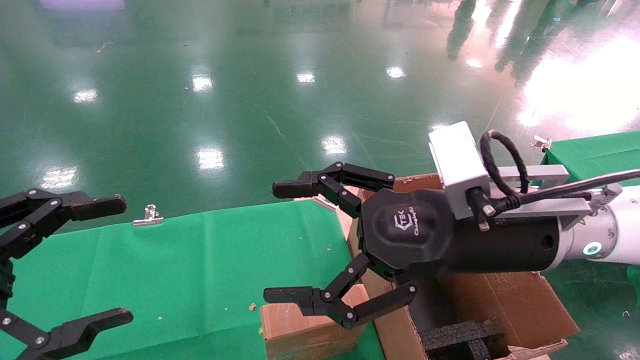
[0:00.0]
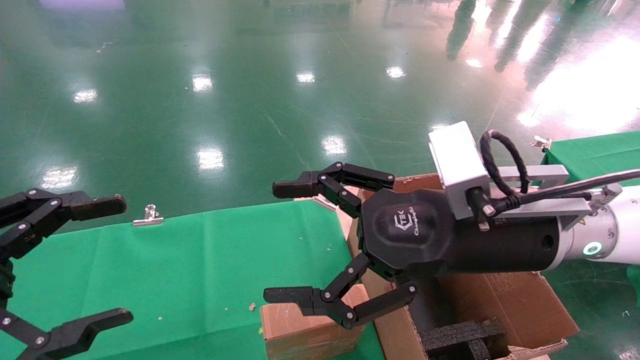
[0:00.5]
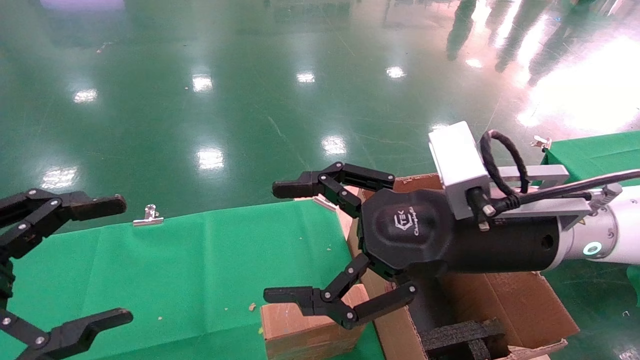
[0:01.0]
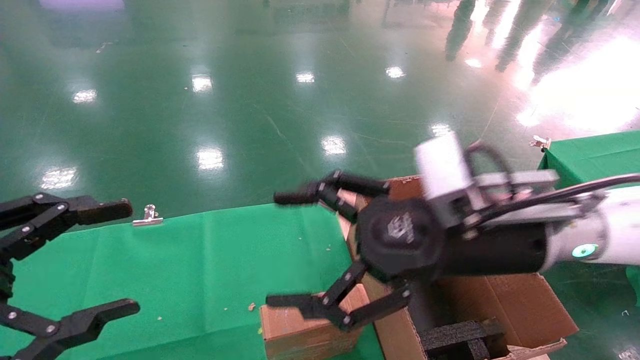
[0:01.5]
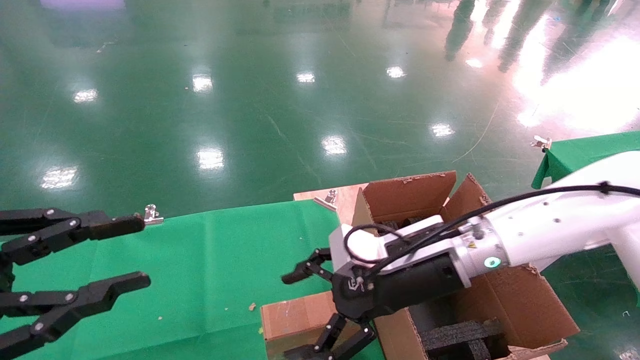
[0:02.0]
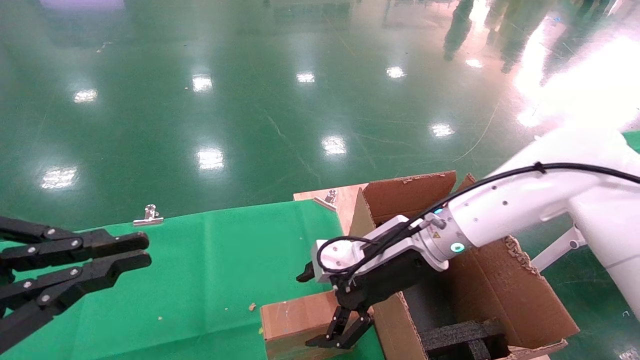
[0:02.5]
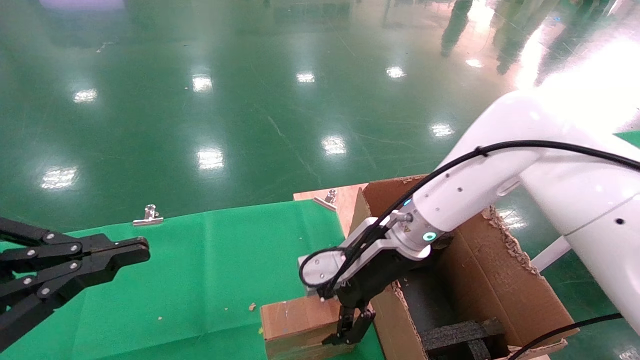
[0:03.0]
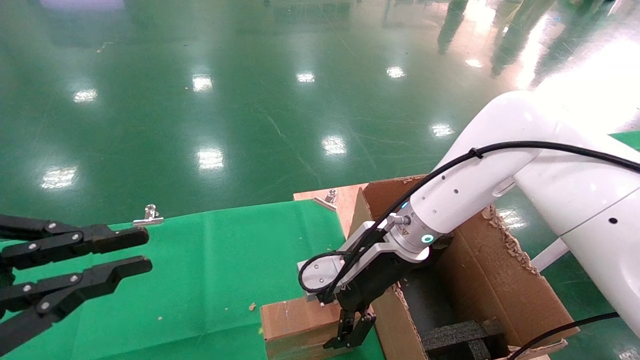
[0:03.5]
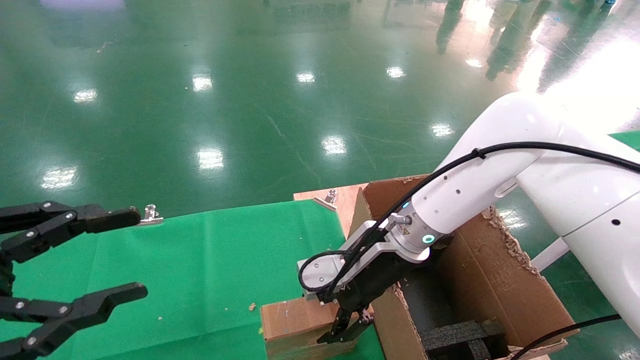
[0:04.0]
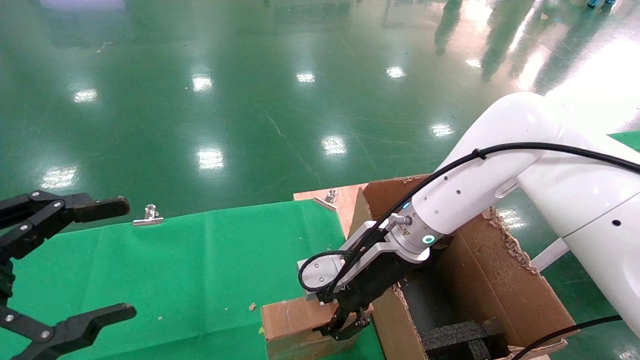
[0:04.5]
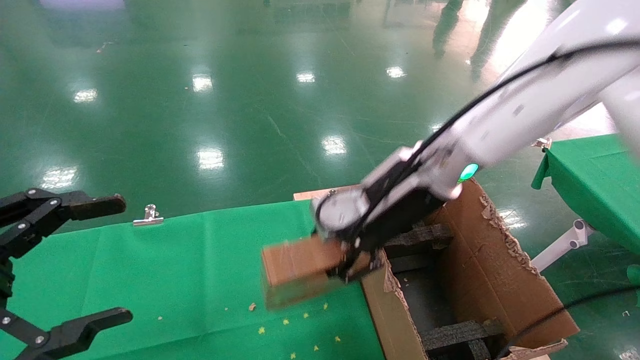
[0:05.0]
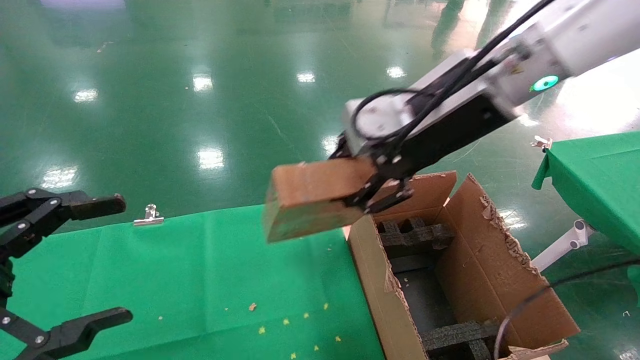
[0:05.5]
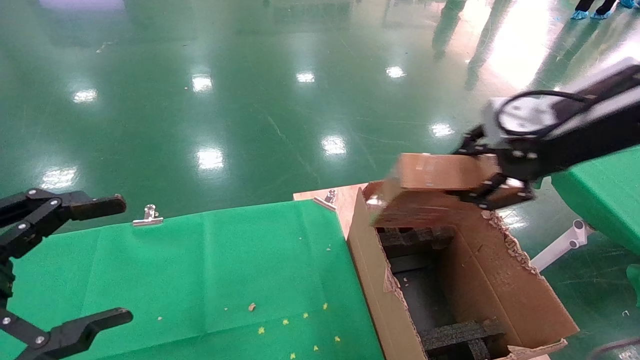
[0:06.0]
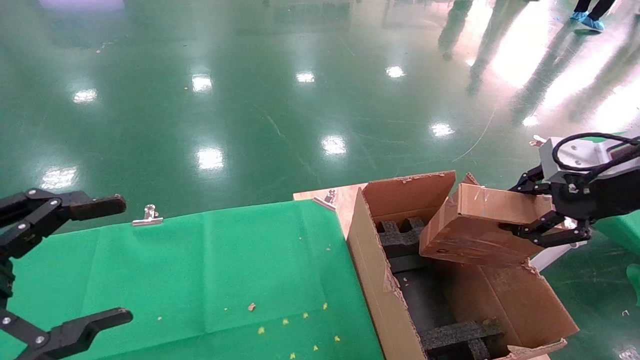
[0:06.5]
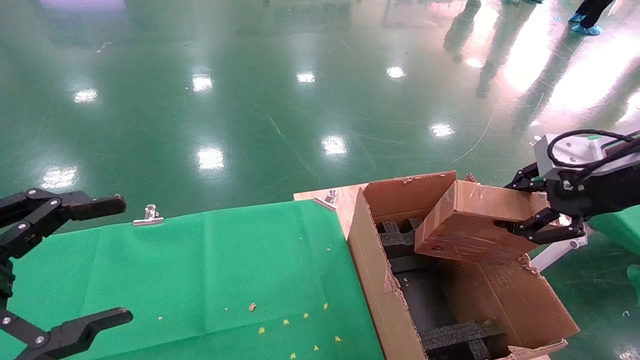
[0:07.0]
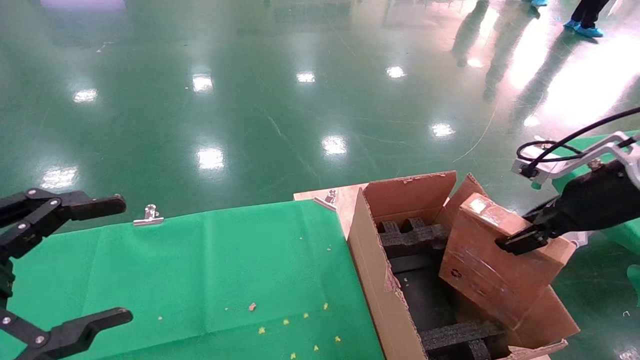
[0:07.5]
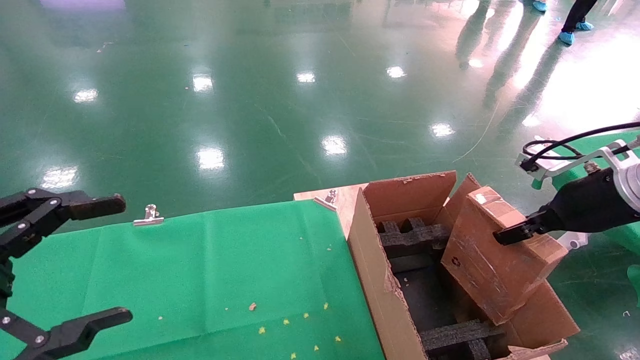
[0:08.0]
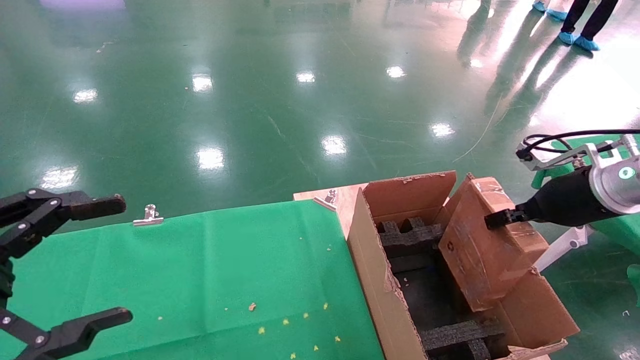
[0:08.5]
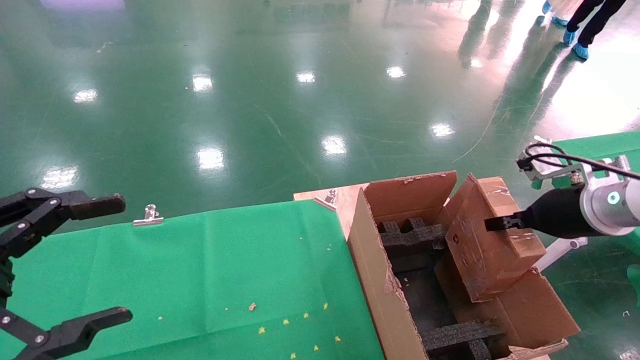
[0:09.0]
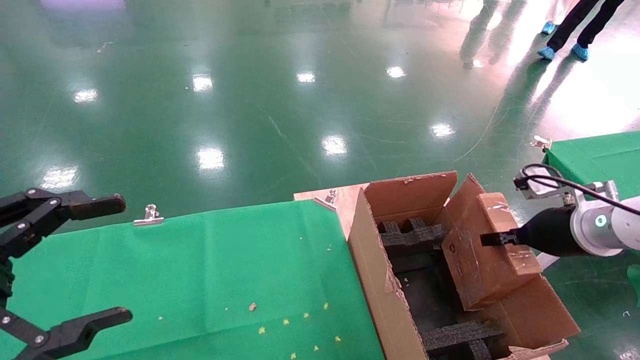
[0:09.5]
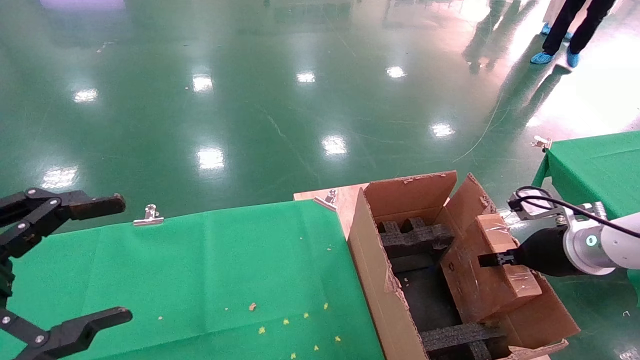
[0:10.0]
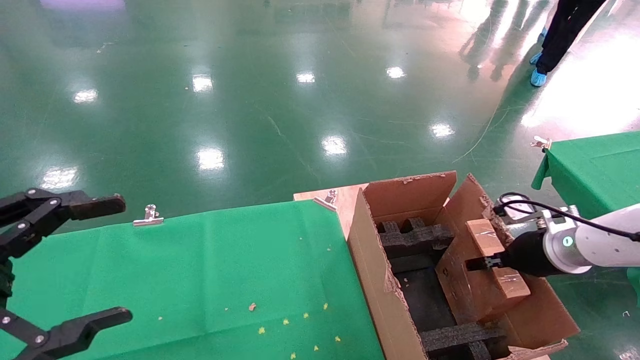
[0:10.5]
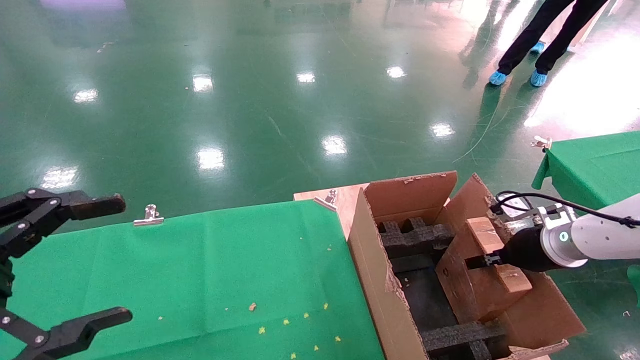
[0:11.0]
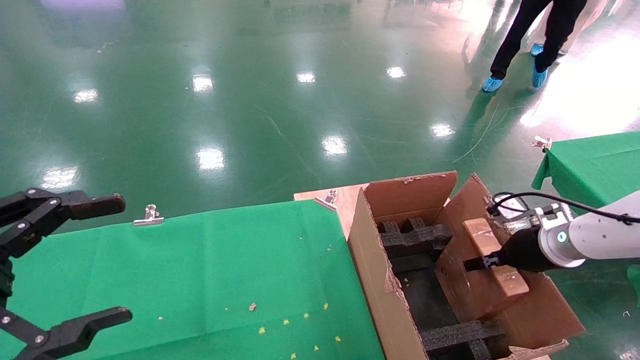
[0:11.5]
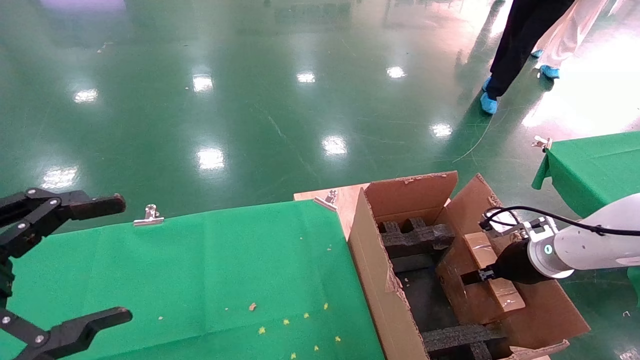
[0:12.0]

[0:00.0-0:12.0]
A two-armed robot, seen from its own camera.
Task of the whole recording: using a robotic arm to pick up a cardboard box and palace it the carton.
Step, 0:01.5 to 0:04.0: Pick up the mouse and the power cord paper box.
0:00.0 to 0:02.0: The right gripper heads downward and forward, covering roughly 10 cm. The left gripper closes its fingers.
0:02.0 to 0:04.0: The left gripper closes, then opens again. Meanwhile the right gripper moves about 5 cm.
0:04.0 to 0:06.0: The left gripper opens its fingers. Meanwhile the right gripper moves upward, to the right and backward, approximately 30 cm, and closes up.
0:06.0 to 0:08.0: The right gripper goes roughly 15 cm downward and to the right.
0:08.0 to 0:10.0: The right gripper goes about 10 cm downward.
0:10.0 to 0:12.0: The right gripper heads downward and forward, covering some 10 cm.

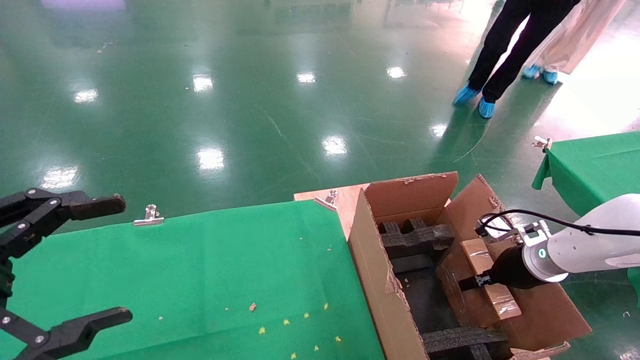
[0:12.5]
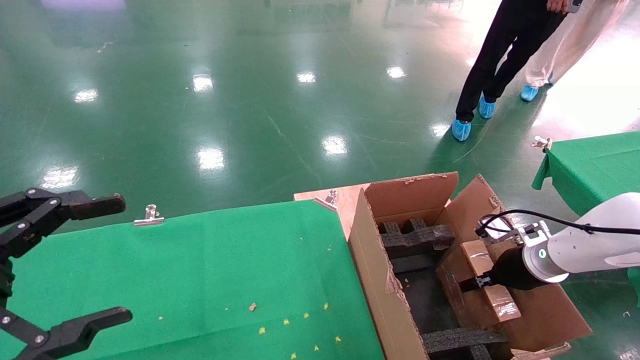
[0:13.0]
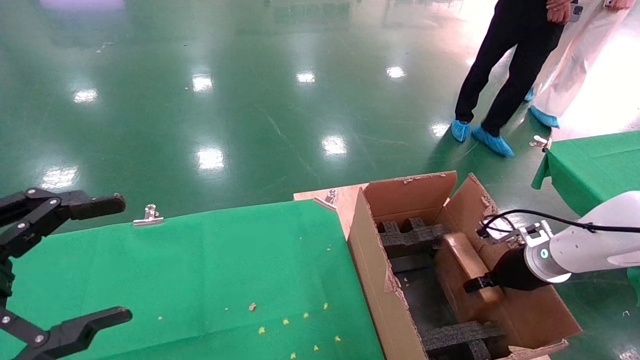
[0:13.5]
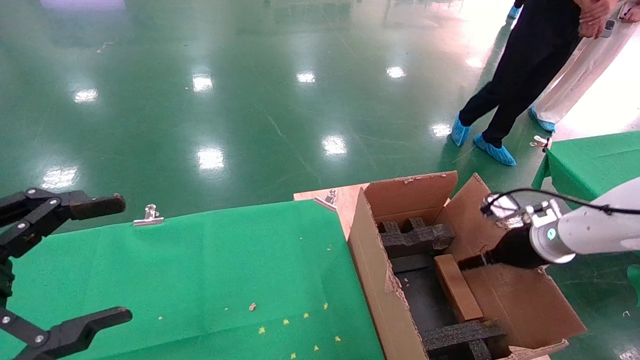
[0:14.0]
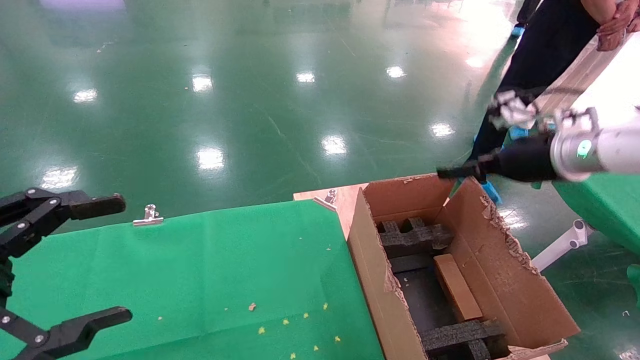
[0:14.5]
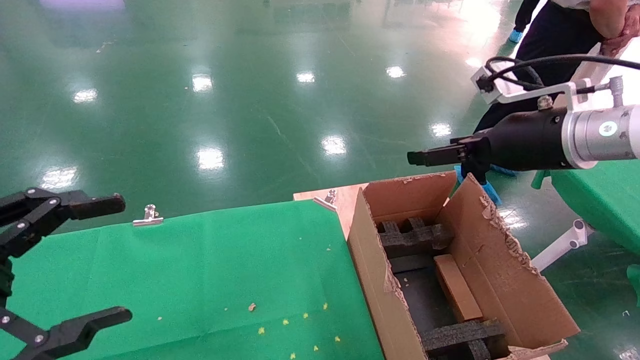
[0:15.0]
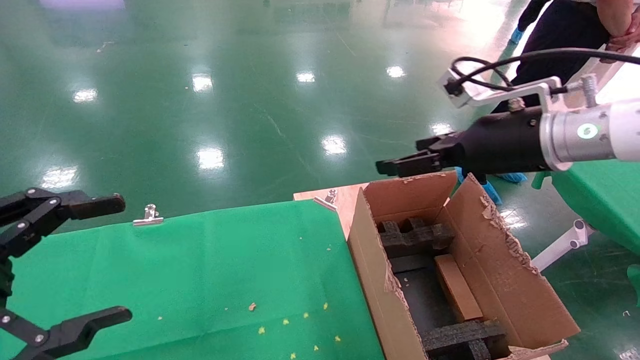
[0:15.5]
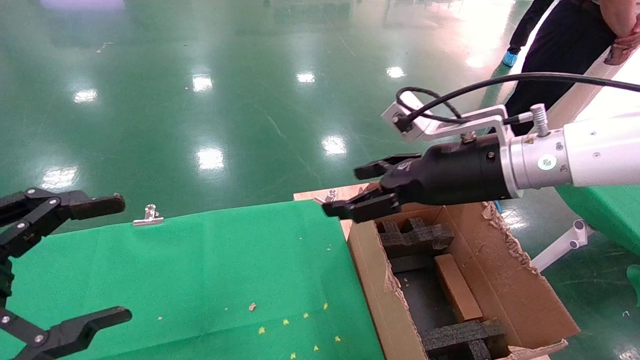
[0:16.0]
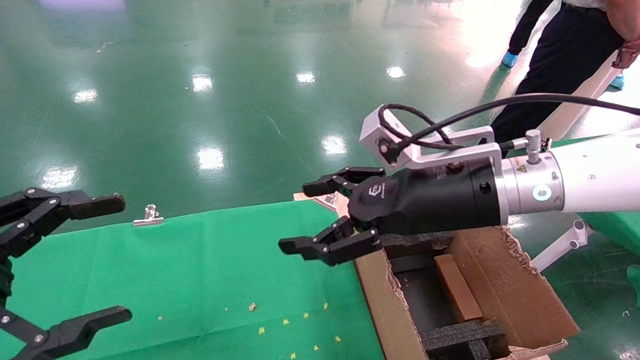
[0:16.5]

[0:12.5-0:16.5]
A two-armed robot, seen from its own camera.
Task of the whole recording: using a robotic arm to pick up a cardboard box and palace it the carton.
0:12.5 to 0:14.5: The right gripper heads upward, covering some 20 cm, and opens up.
0:14.5 to 0:16.5: The right gripper travels to the left by approximately 15 cm.
